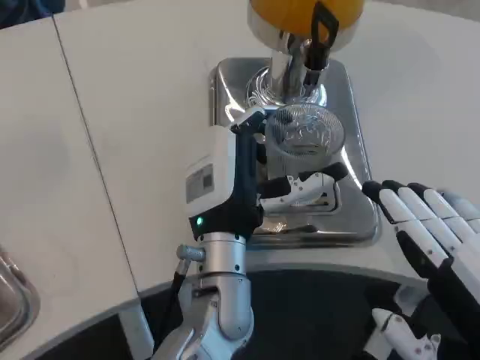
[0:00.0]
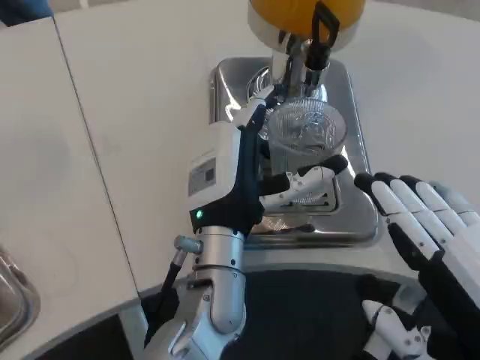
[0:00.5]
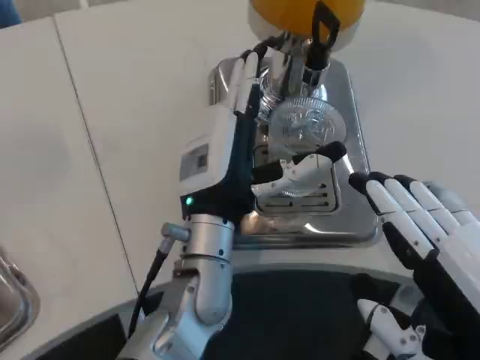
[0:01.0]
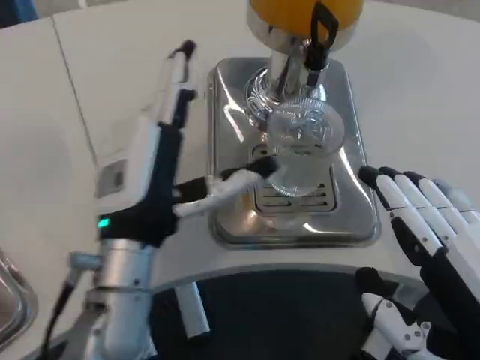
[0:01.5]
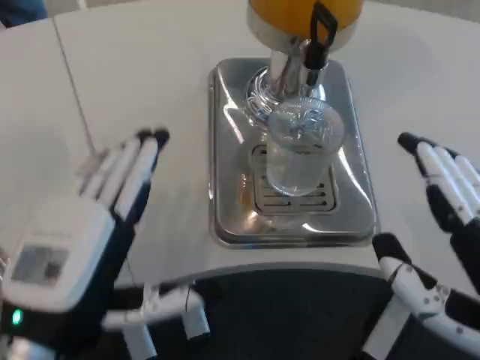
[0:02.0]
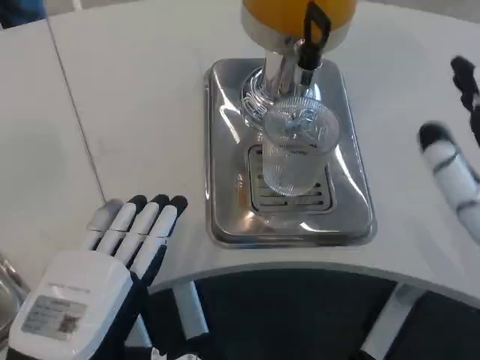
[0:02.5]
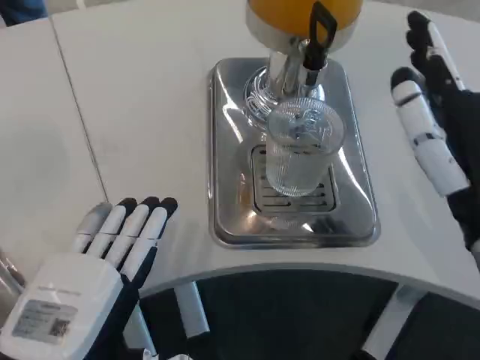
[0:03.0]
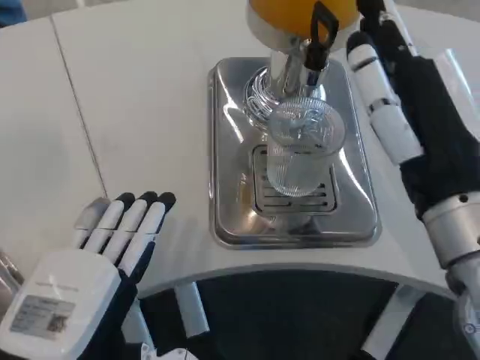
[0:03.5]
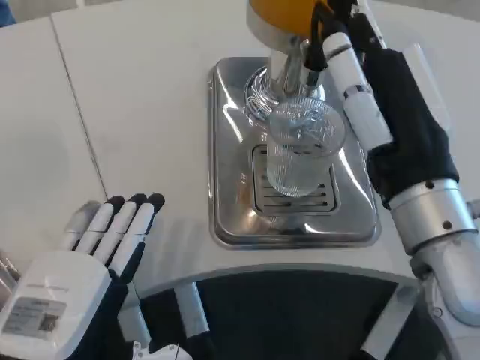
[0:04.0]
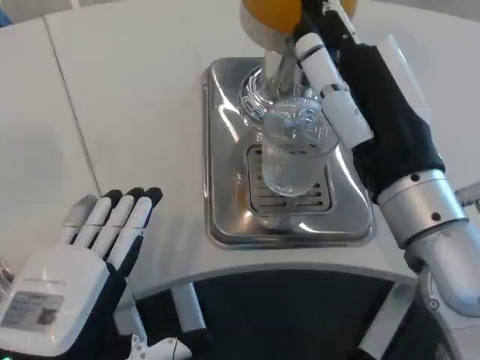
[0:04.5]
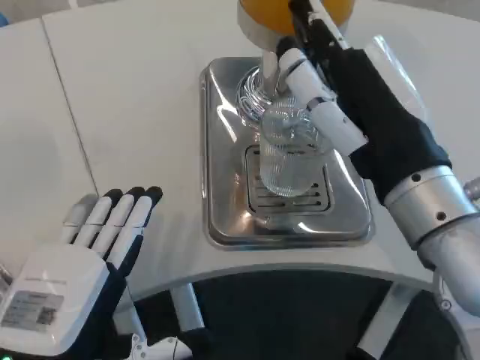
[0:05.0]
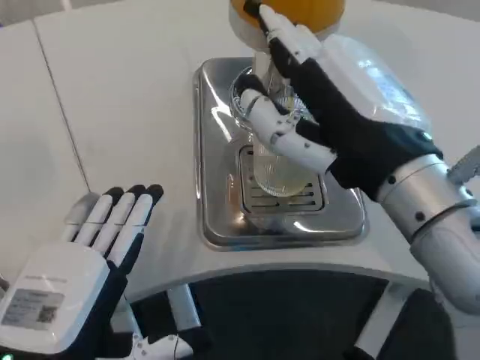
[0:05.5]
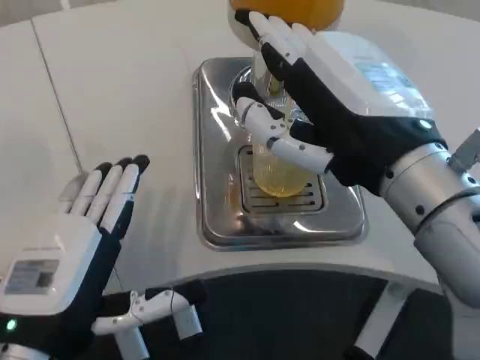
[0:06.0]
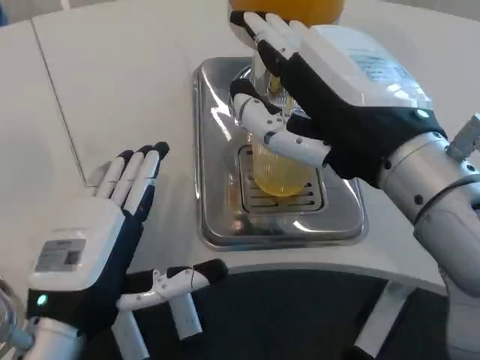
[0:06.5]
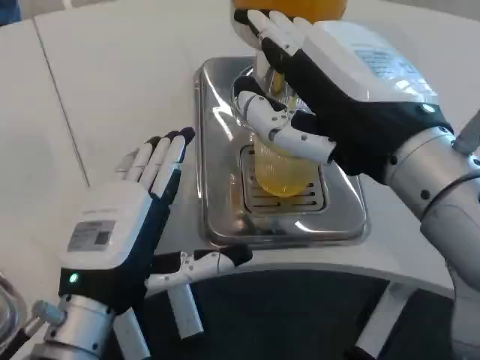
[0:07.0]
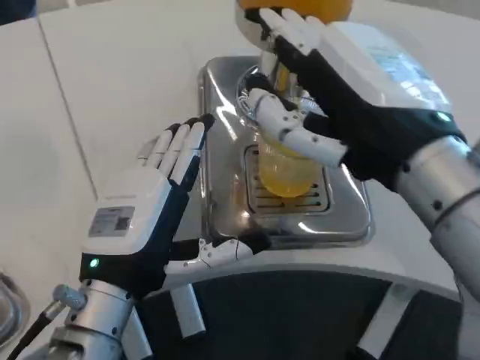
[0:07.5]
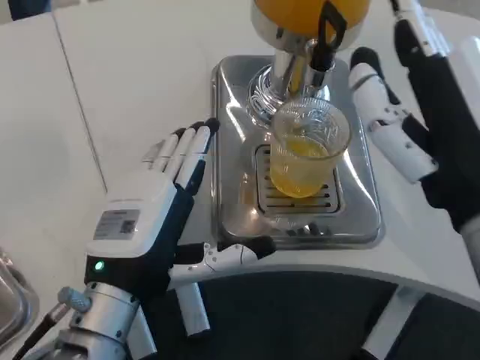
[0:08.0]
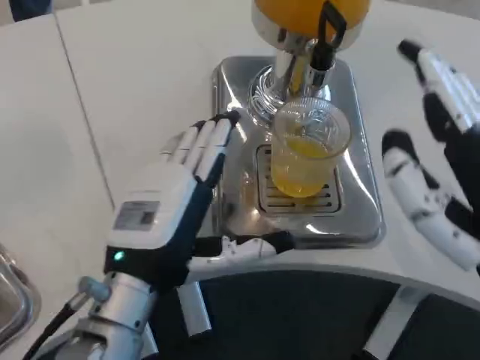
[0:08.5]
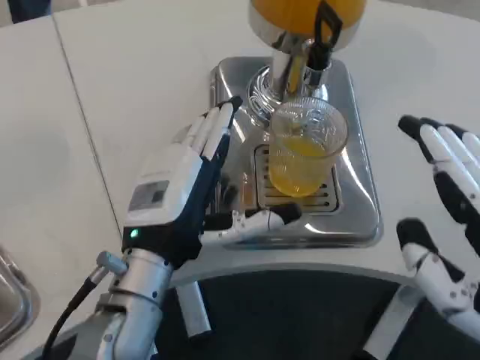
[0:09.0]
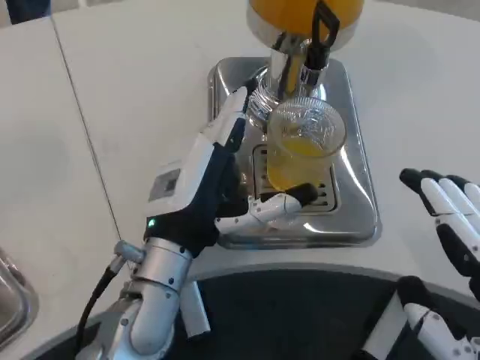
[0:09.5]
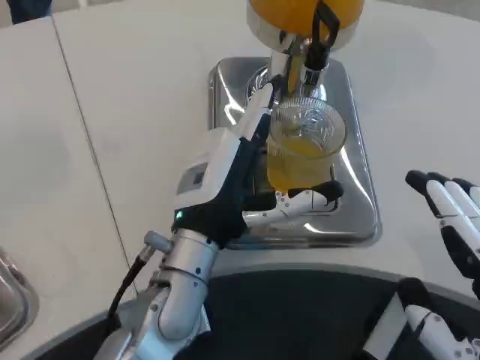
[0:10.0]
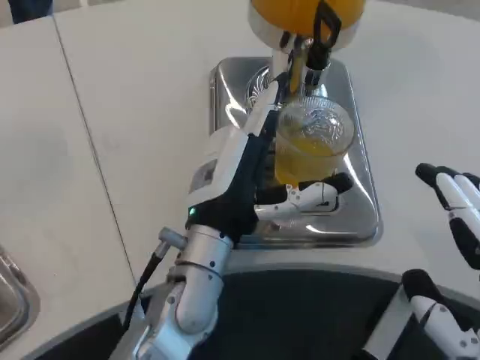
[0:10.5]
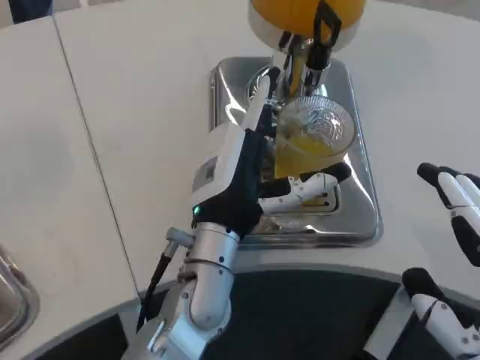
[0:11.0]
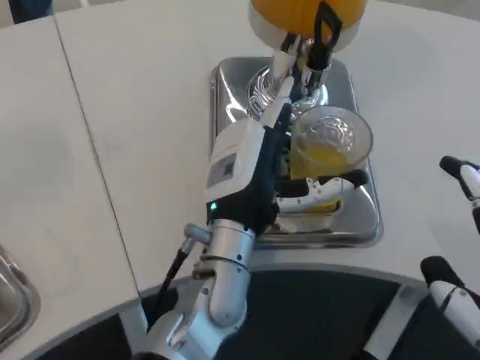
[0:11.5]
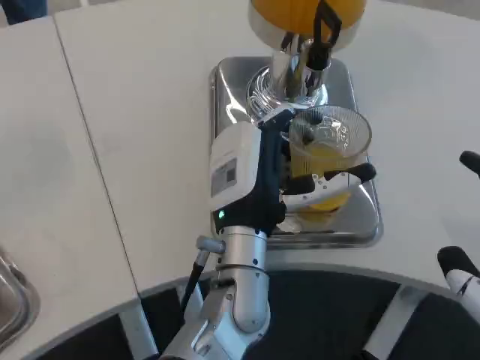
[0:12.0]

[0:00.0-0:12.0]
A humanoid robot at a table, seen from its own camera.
Task of the whole recording: Grasp the cup under the faucet to collect the drink, then remove the cup.
0:00.0 to 0:02.0: The left hand shifts about 20 cm to the left and backward.
0:02.0 to 0:04.0: The right hand heads forward and to the left, covering about 15 cm.
0:04.0 to 0:06.0: The right hand shifts by some 5 cm.
0:06.0 to 0:08.0: The left hand travels forward by approximately 5 cm. Meanwhile the right hand moves about 5 cm.
0:08.0 to 0:10.0: The right hand goes approximately 15 cm backward, to the right and downward. Meanwhile the left hand goes some 10 cm to the right and forward.
0:10.0 to 0:12.0: The left hand heads to the right, covering some 5 cm.

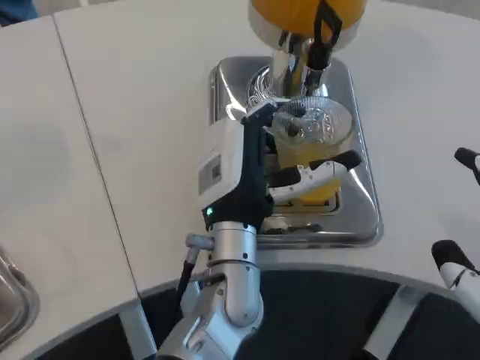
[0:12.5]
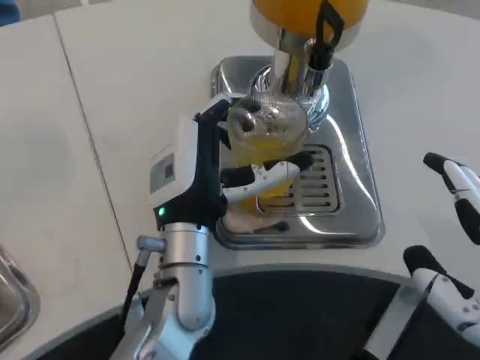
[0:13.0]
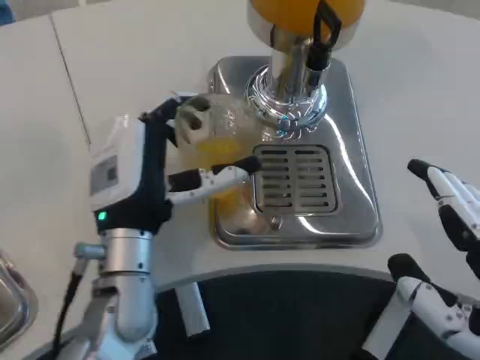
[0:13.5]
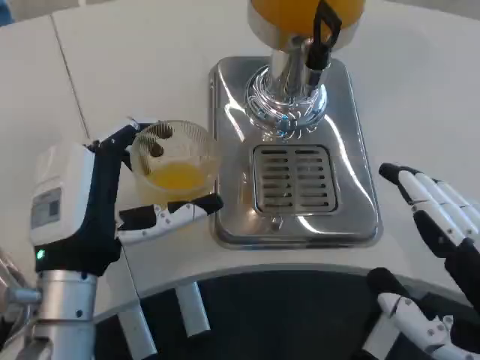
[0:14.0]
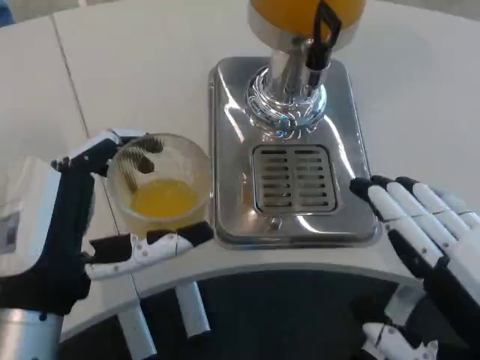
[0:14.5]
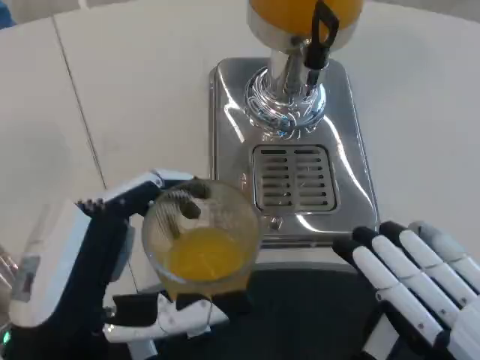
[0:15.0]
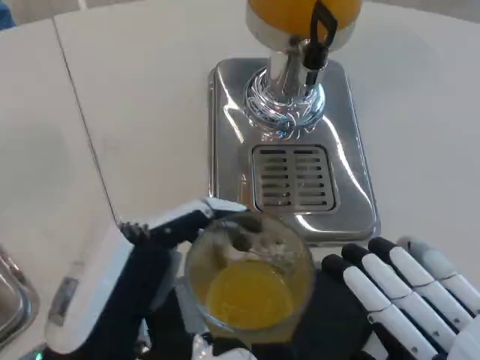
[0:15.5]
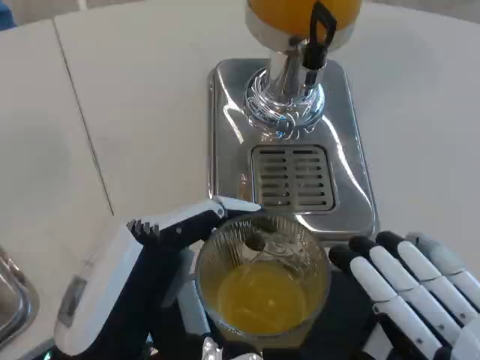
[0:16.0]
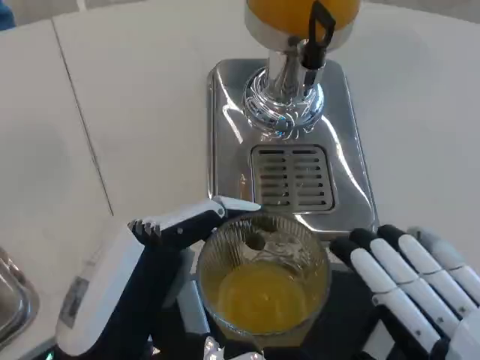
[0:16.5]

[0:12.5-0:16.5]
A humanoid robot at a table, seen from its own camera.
Task of the whole recording: Grasp the cup under the faucet to collect the drink, then remove the cup.
0:12.5 to 0:14.5: The left hand is displaced to the left and backward by some 20 cm.
0:14.5 to 0:16.5: The left hand travels backward by about 5 cm.

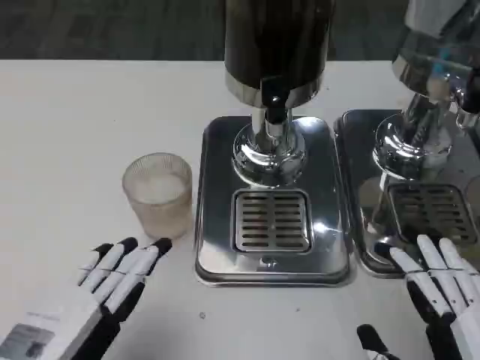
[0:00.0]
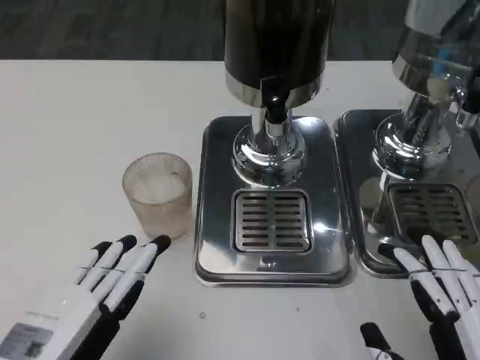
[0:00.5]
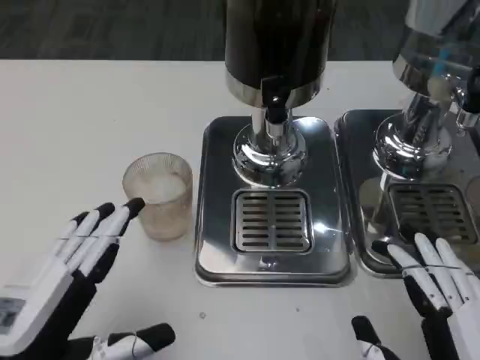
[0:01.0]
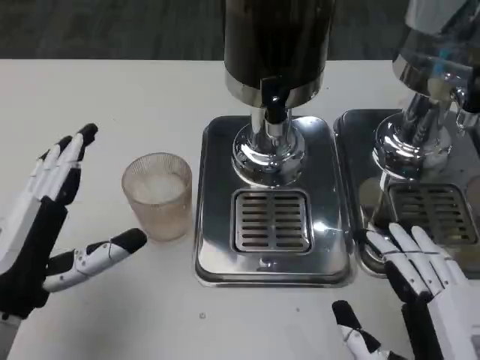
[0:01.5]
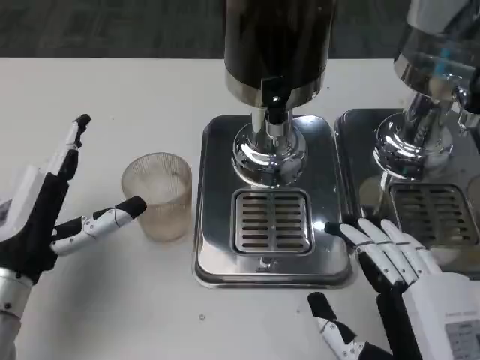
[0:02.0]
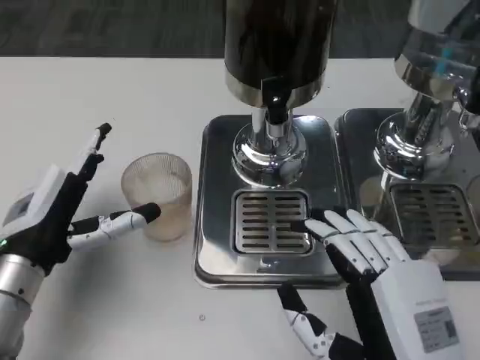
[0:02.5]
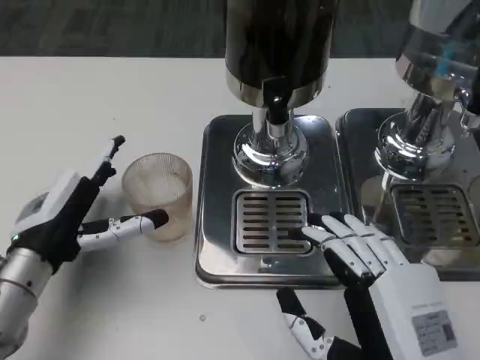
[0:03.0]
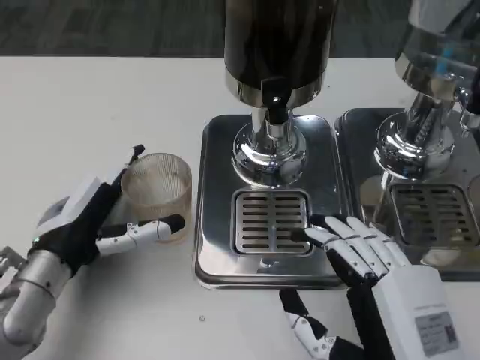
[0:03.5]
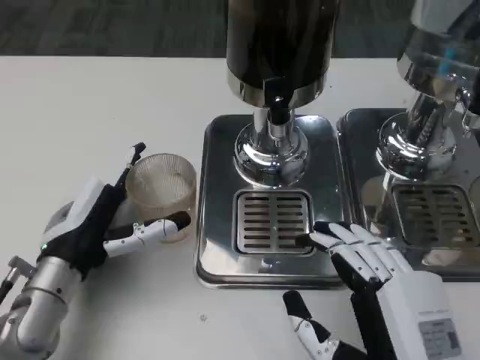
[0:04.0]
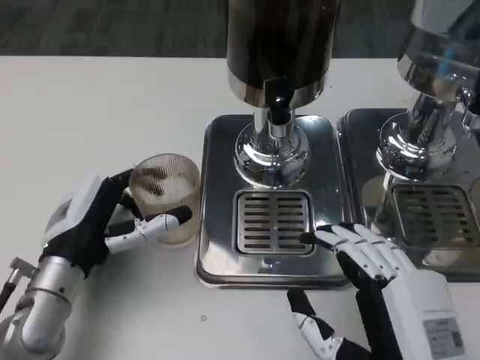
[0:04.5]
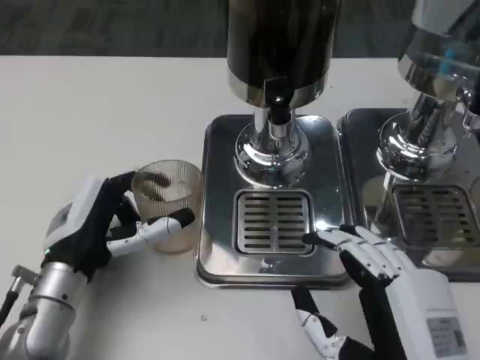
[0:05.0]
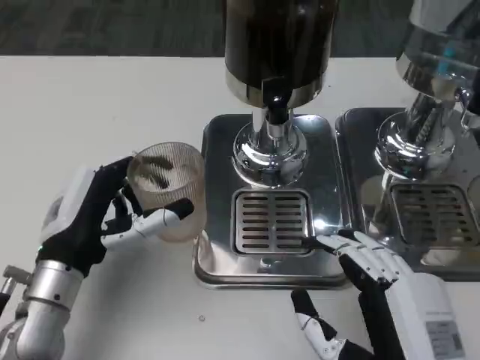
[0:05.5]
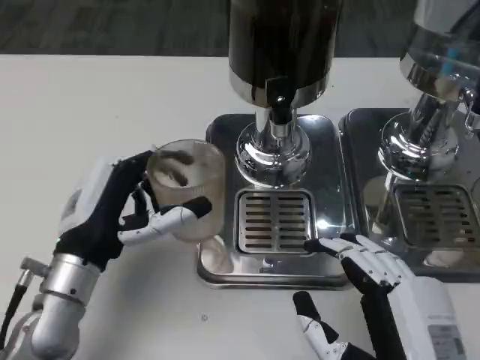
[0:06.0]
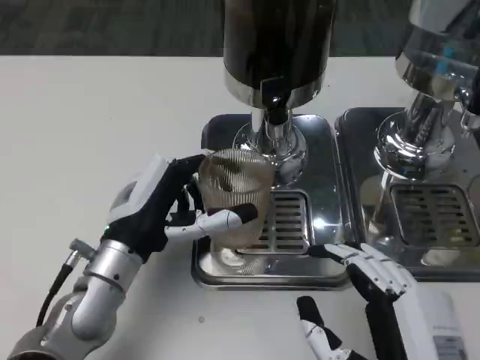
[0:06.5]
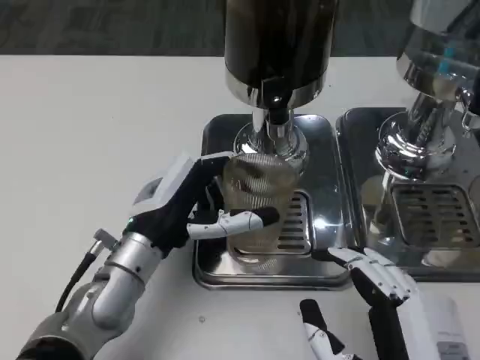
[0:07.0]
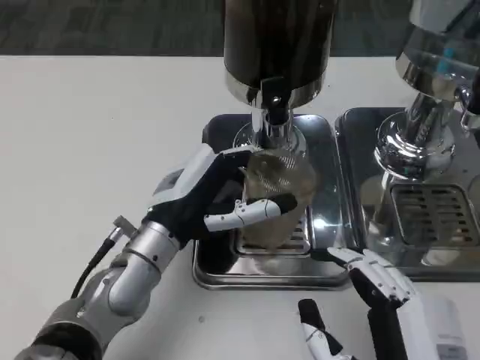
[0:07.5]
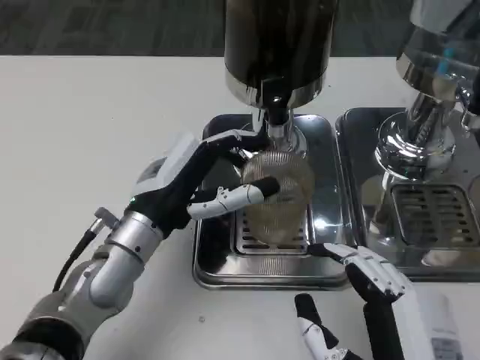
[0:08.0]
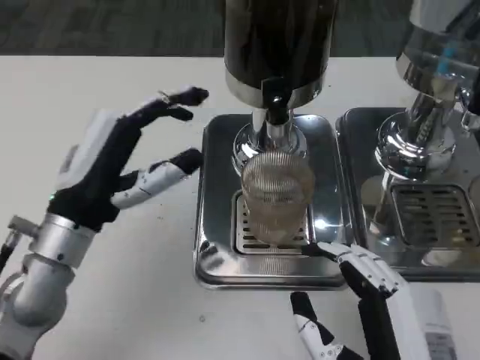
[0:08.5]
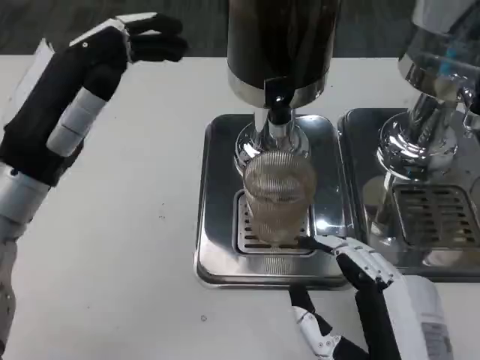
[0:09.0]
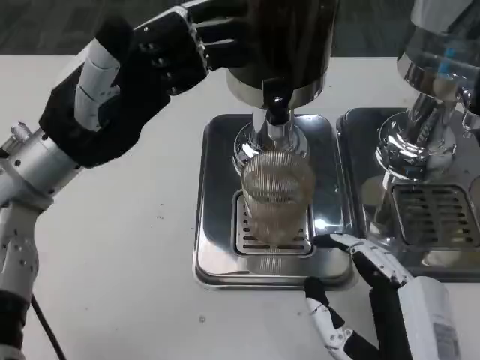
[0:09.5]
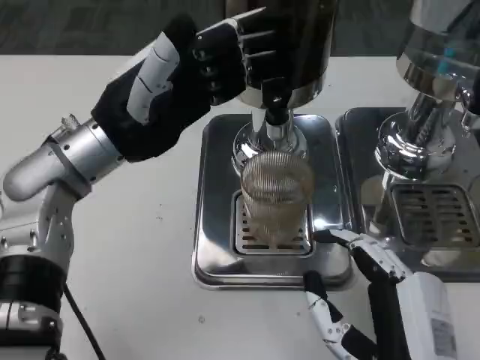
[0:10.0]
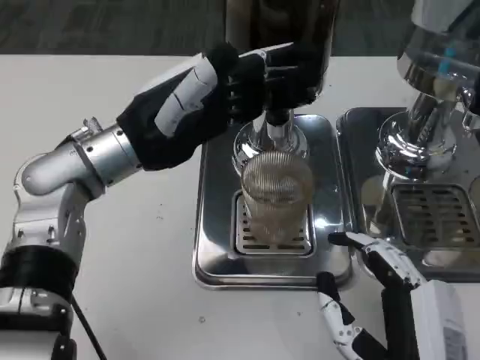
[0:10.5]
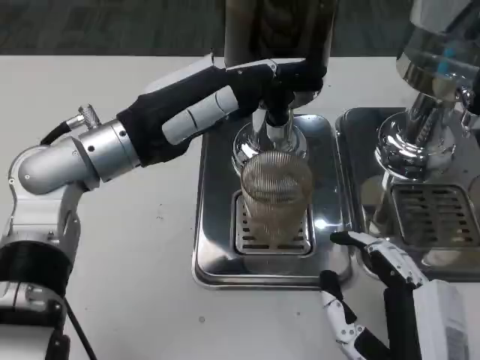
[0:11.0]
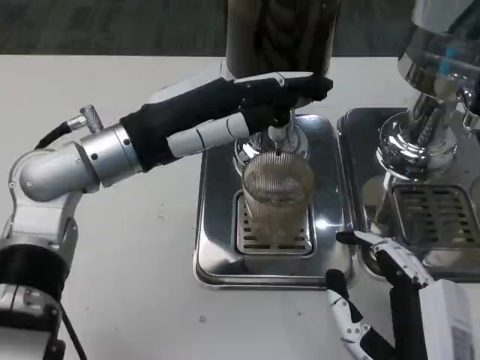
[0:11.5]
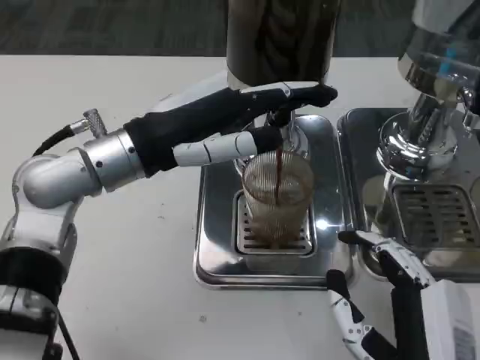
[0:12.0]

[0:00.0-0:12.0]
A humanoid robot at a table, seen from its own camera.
Task of the whole recording: Grasp the cup under the faucet to collect the drink, then remove the cup.
0:00.0 to 0:02.0: The left hand is displaced forward by roughly 15 cm.
0:06.0 to 0:08.0: The left hand moves approximately 5 cm.
0:08.0 to 0:10.0: The left hand goes about 10 cm upward.
